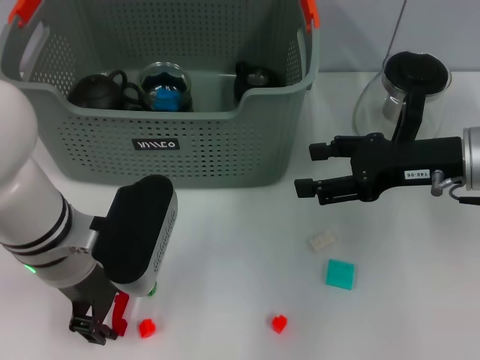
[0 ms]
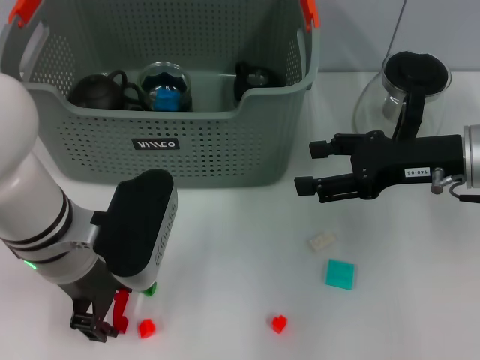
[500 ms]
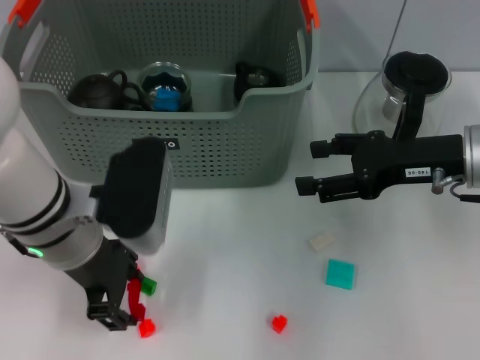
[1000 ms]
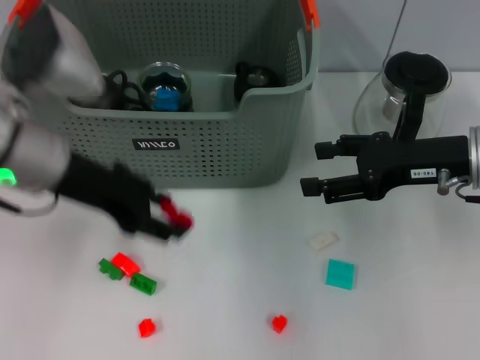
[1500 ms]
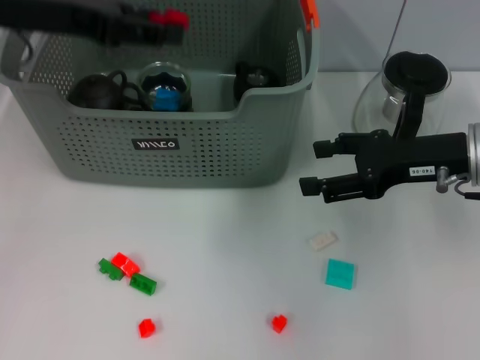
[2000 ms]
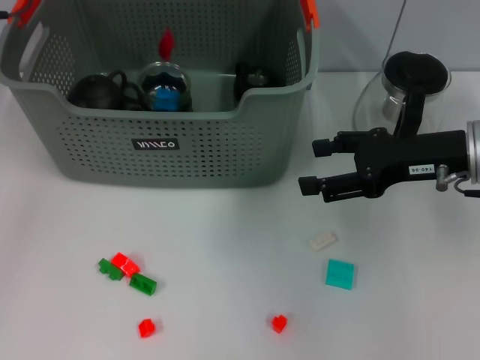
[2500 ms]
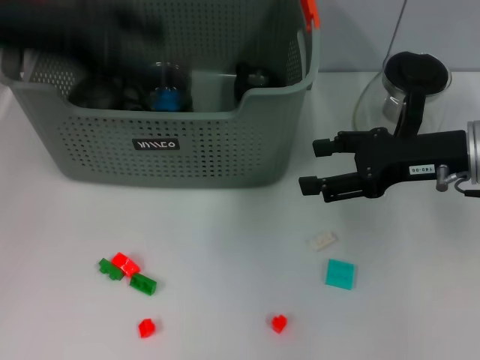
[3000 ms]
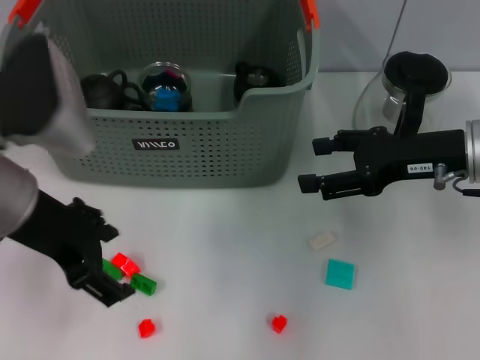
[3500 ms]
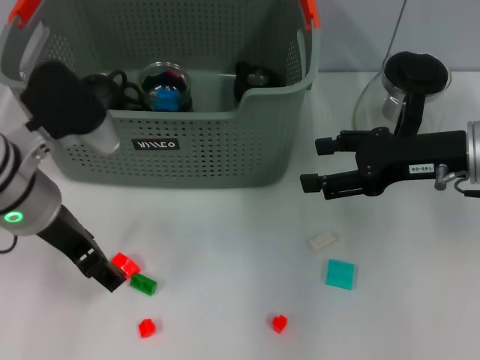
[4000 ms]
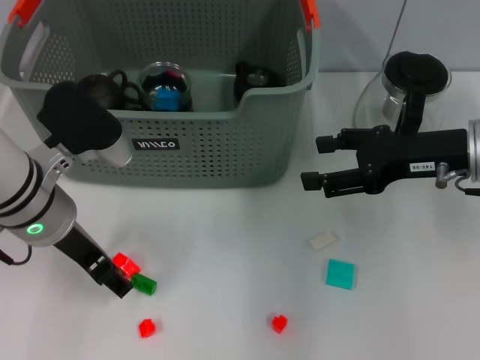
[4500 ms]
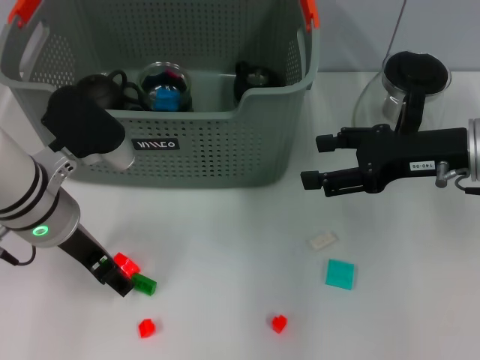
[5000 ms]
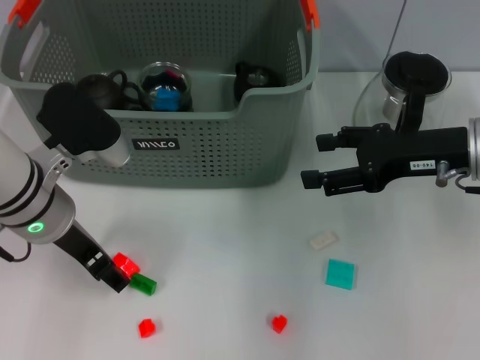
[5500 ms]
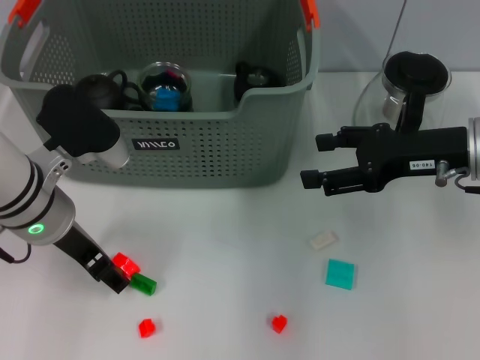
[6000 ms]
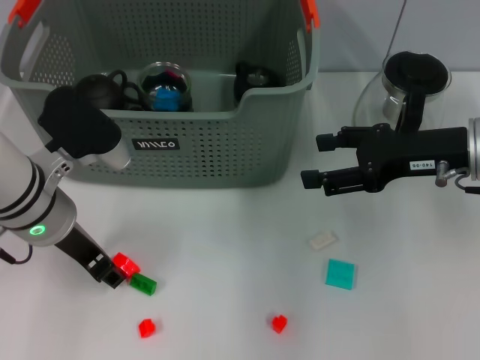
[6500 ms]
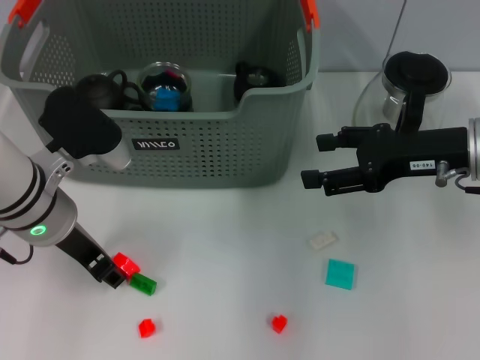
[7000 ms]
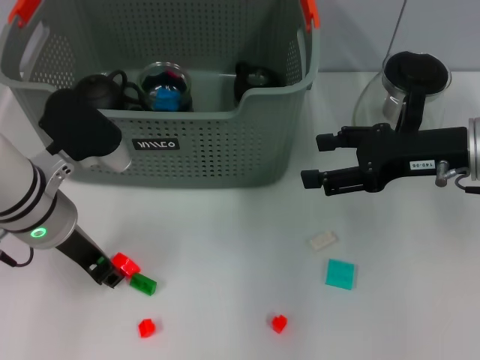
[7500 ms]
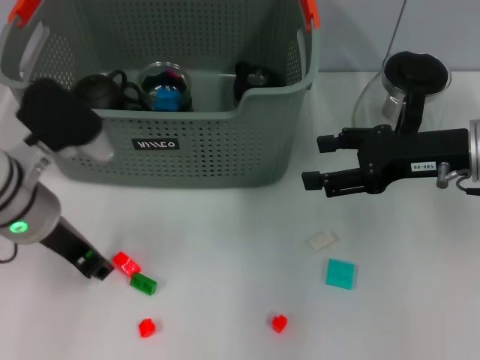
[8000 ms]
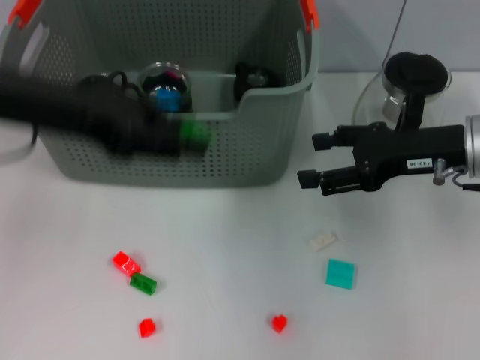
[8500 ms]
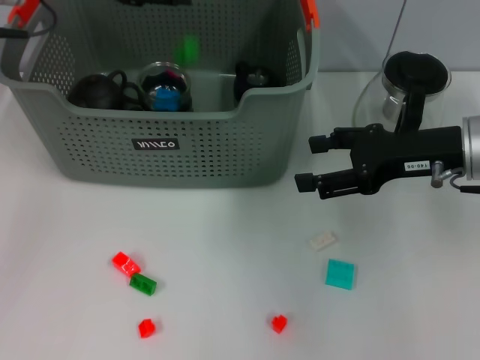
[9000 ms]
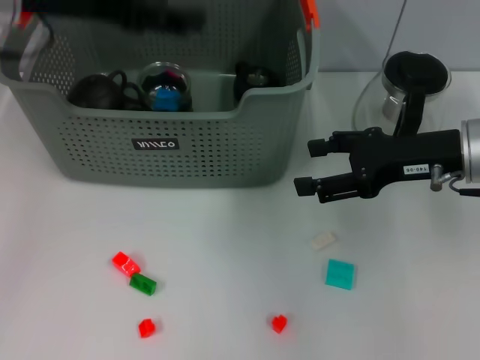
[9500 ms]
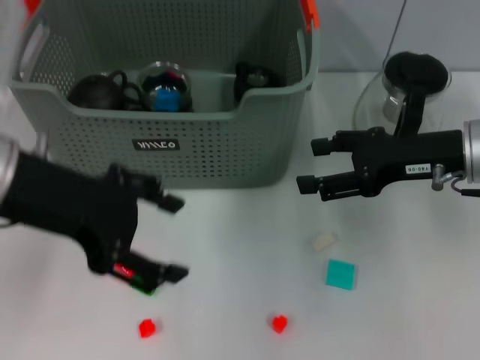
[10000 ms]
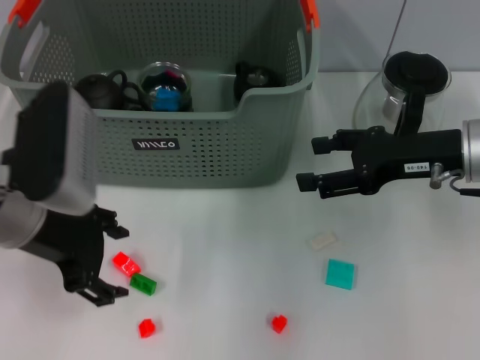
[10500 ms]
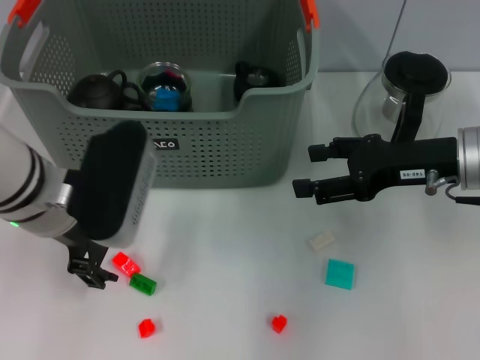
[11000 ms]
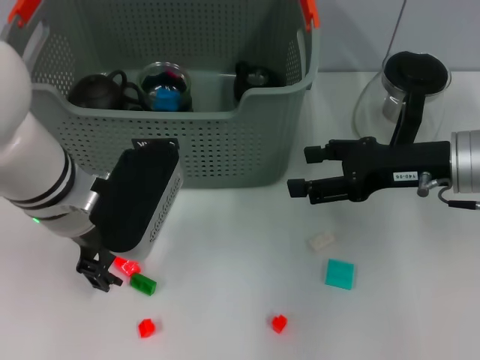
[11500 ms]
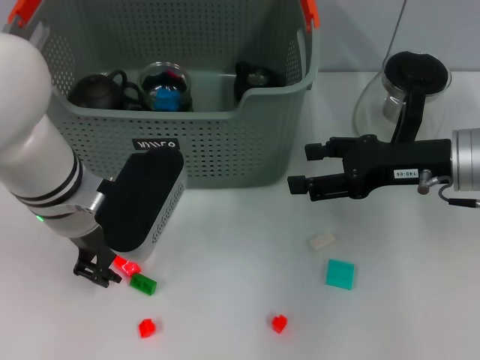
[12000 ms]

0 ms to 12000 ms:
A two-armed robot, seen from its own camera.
Task of the whole recording: pick up the teacup on the table and place it into the storage bin, pick up the block on the table and place it into the storage bin.
Step, 500 ms to 2500 ms: Place the red block in the storage box with left gripper.
Step, 3000 ms to 7500 ms: Grasp the green block with left gripper.
Step, 8000 ms to 9000 ms: Place the green block in the storage box with left gripper.
0 ms to 2000 ms: The left gripper moves upward, forward and to the left, some 20 cm.
2000 ms to 4000 ms: The left gripper is displaced downward, backward and to the right by roughly 15 cm.
4000 ms to 6000 ms: The grippers make only small movements.
6000 ms to 8000 ms: The left gripper closes.
8000 ms to 10000 ms: The left gripper moves upward, about 10 cm, and opens up.
10000 ms to 12000 ms: The left gripper is displaced downward and to the right by approximately 10 cm.

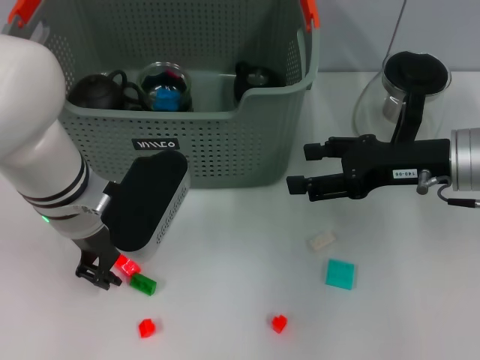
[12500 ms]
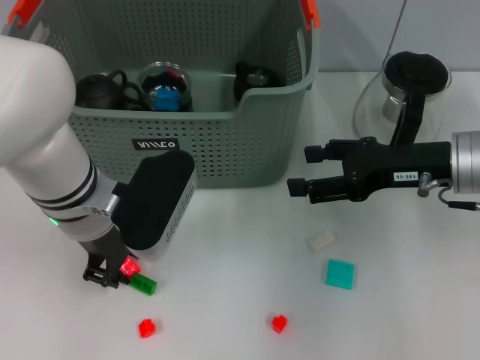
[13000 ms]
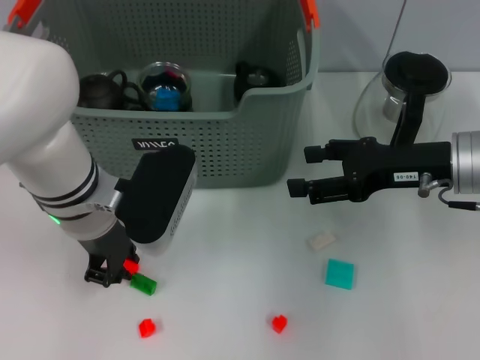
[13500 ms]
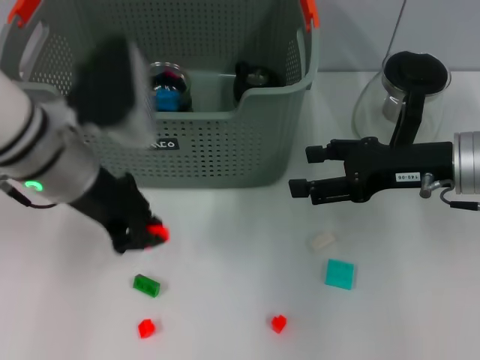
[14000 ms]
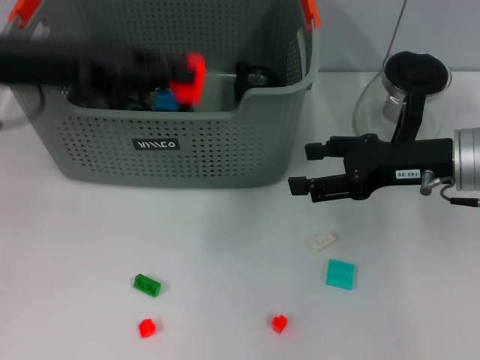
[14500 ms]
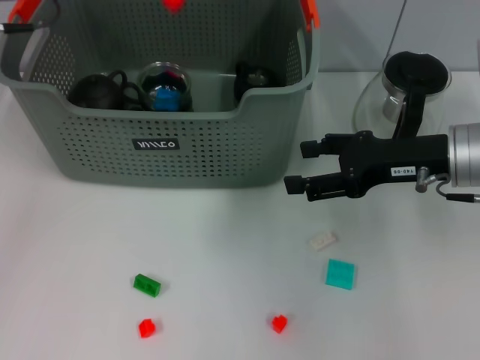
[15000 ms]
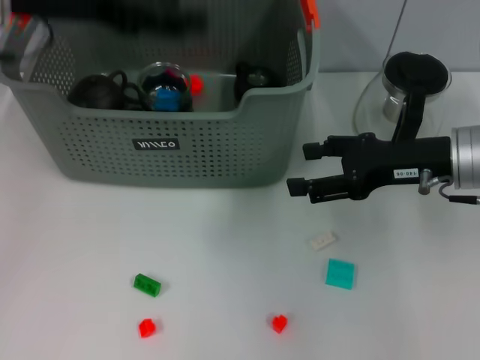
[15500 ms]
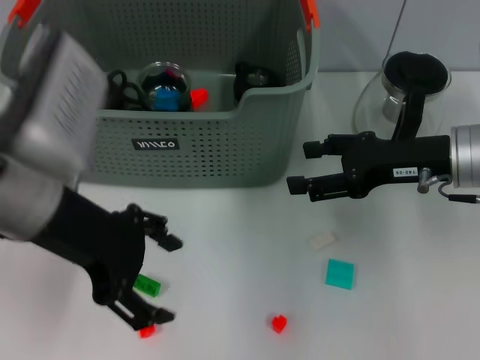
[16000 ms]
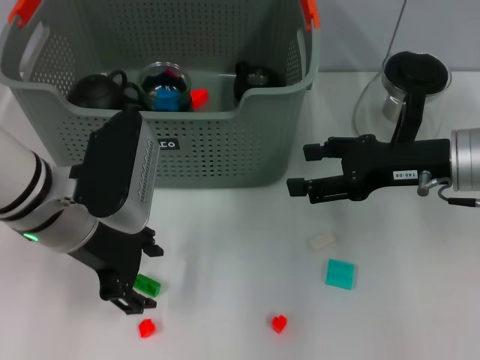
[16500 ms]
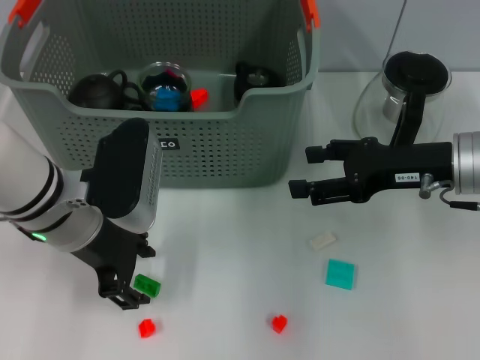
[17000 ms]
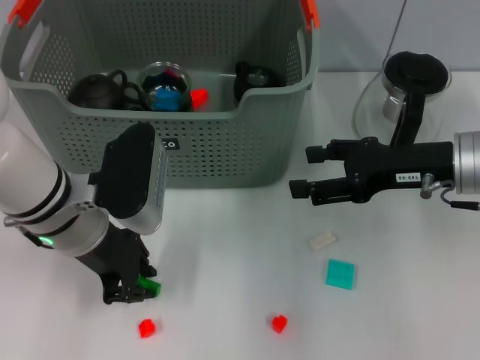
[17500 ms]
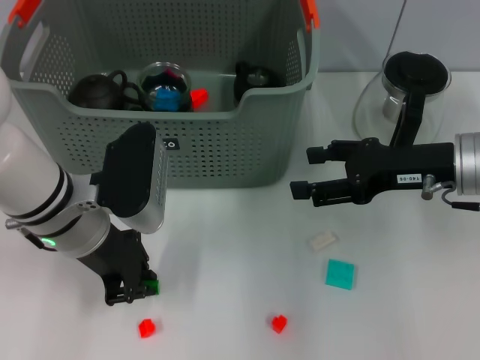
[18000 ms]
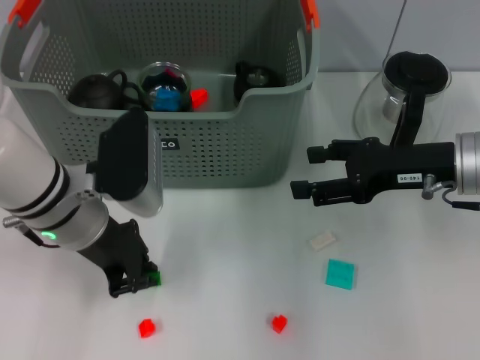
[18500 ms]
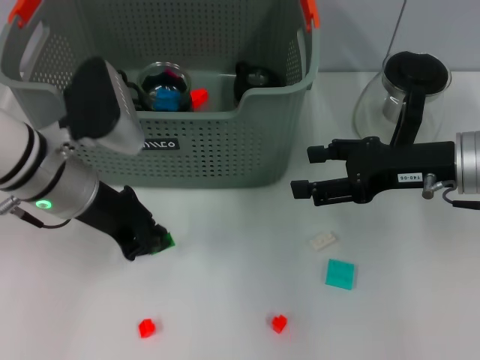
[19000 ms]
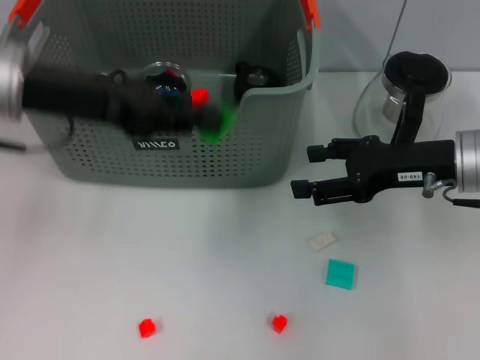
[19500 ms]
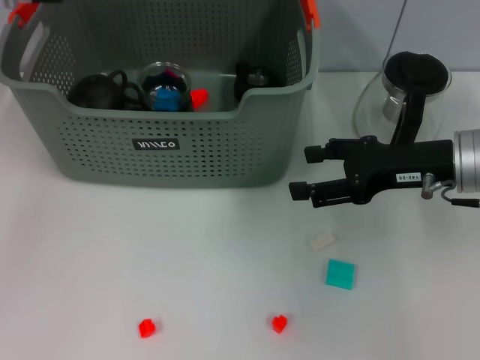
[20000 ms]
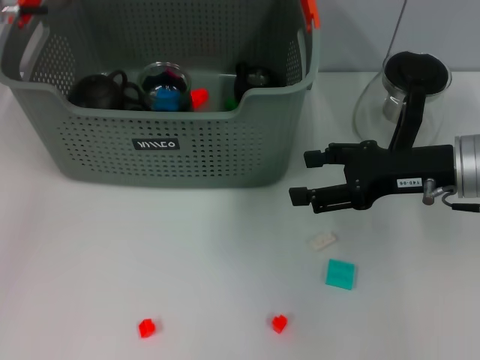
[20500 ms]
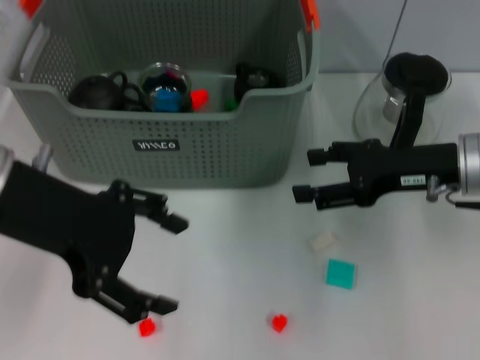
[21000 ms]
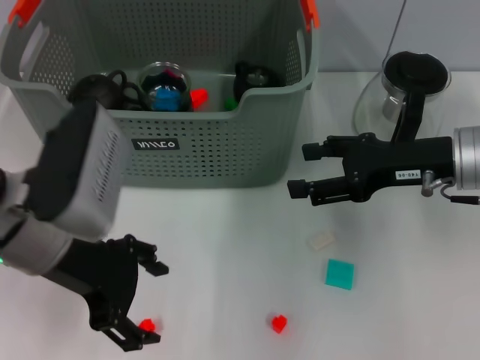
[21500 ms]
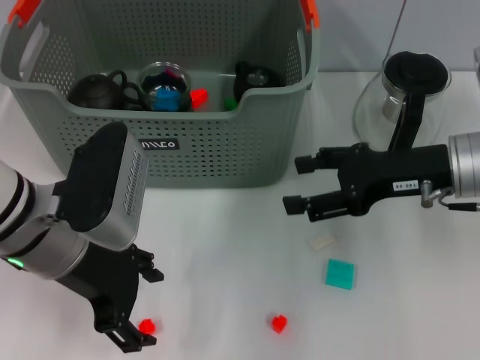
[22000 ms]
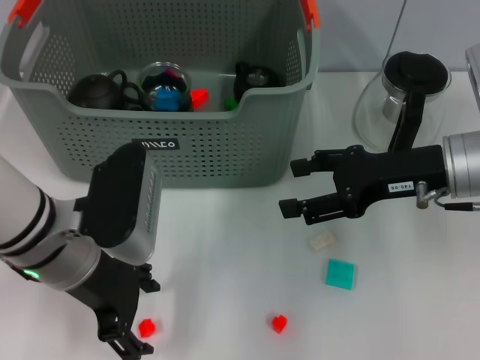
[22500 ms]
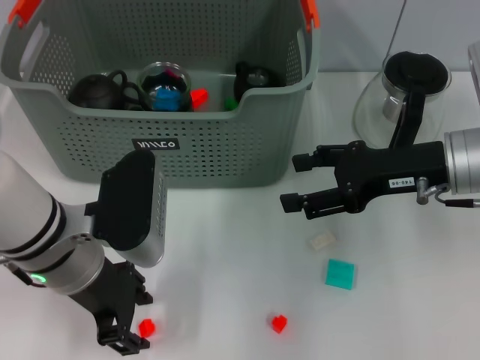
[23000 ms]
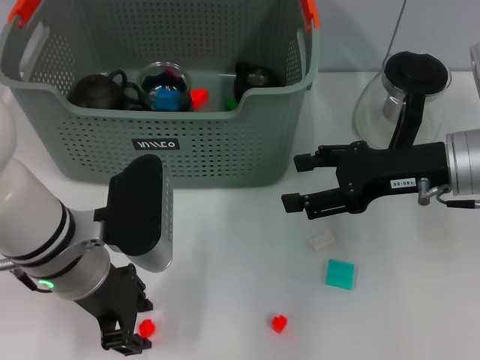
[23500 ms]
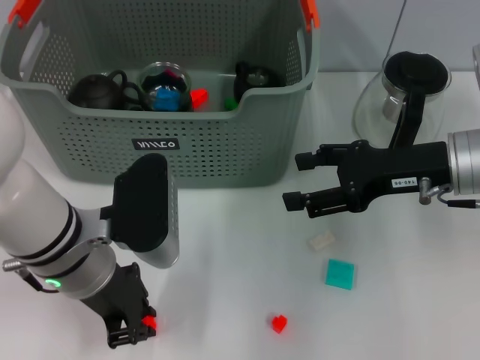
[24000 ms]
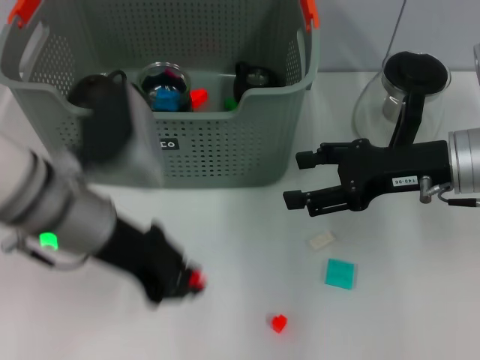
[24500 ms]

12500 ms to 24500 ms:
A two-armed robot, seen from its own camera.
Task of the whole recording: pick up the teacup on the table and place it into the storage bin, pick up the block on the table and place it into the storage bin.
Step, 14000 ms to 15000 ms: Place the orange block in the storage box with left gripper.
Step, 15500 ms to 17500 ms: Grasp the green block with left gripper.
Step, 18500 ms to 20000 ms: Place the green block in the storage box with left gripper.
Step, 20500 ms to 24000 ms: Grasp the orange block with left gripper.
12500 ms to 14500 ms: The left gripper goes roughly 15 cm upward and to the left, and closes up.
14500 ms to 16500 ms: The left gripper goes approximately 15 cm downward and to the right, and opens its fingers.
16500 ms to 18500 ms: The left gripper closes its fingers.
18500 ms to 20500 ms: The left gripper goes some 20 cm upward and forward.
20500 ms to 22500 ms: The left gripper is displaced downward and backward by some 20 cm, and opens.
22500 ms to 24500 ms: The left gripper closes.

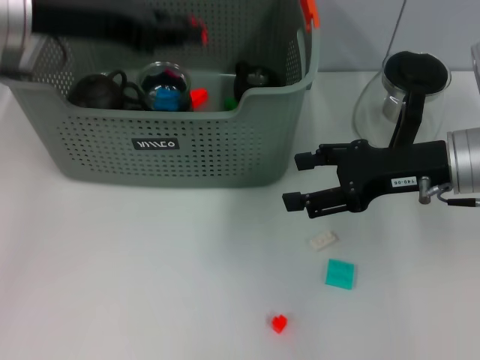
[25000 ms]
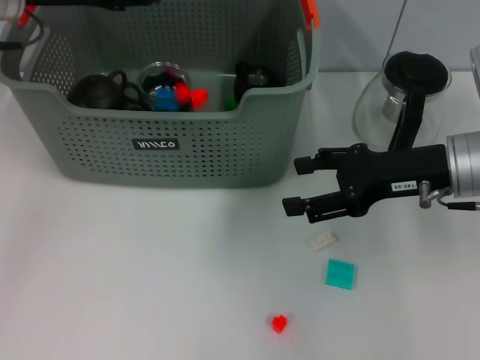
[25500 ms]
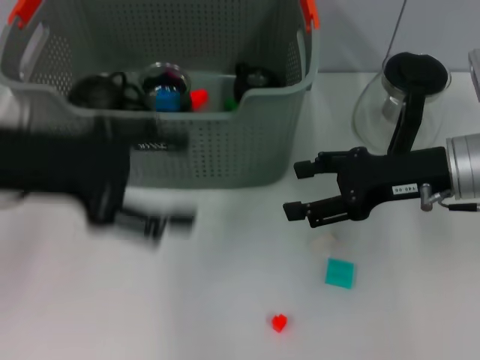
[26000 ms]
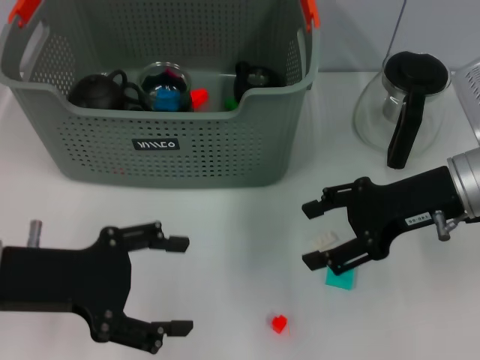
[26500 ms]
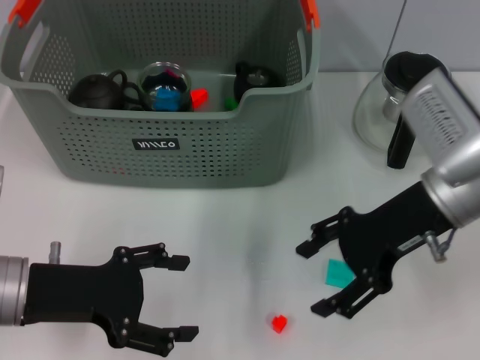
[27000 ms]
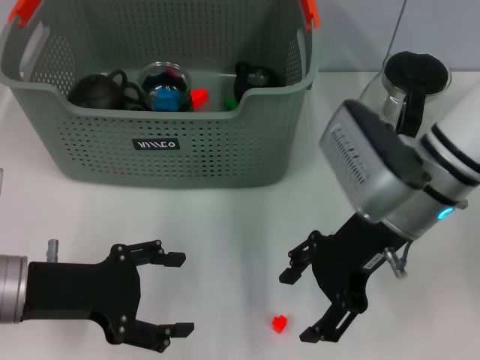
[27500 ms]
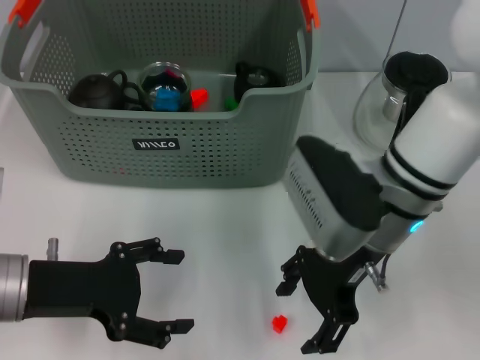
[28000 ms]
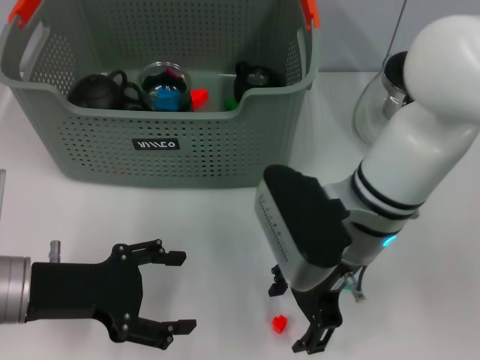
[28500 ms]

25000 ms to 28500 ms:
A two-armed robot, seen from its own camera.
Task of the whole recording: pick up the teacup on the table and place it into the storage bin, pick up the block on the table and place it into the storage bin.
25000 ms to 27000 ms: The left gripper is displaced downward and backward by roughly 20 cm, and opens its fingers.
27000 ms to 28500 ms: The right gripper heads to the left, covering approximately 10 cm.
